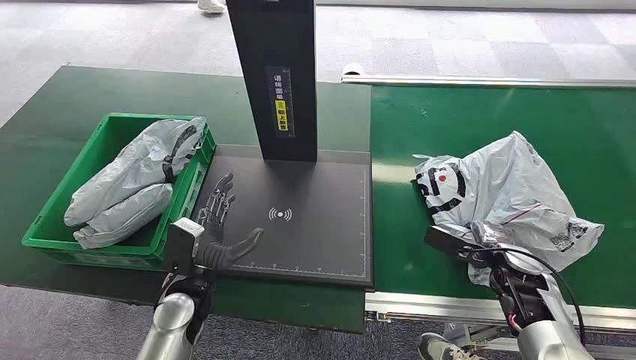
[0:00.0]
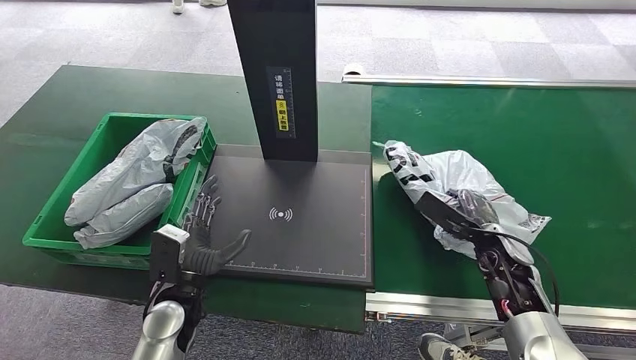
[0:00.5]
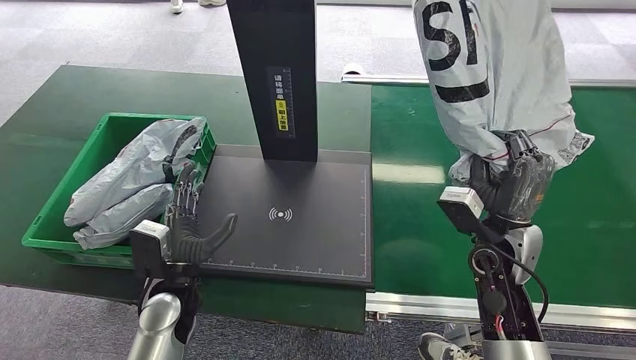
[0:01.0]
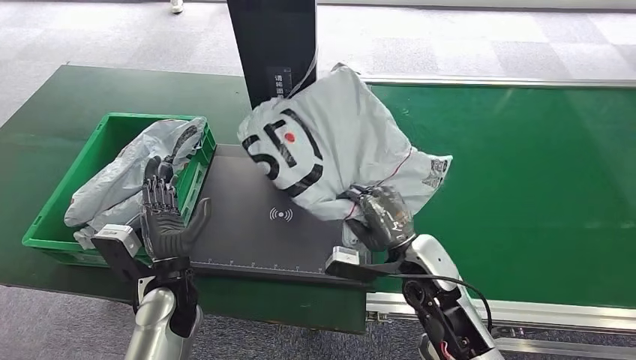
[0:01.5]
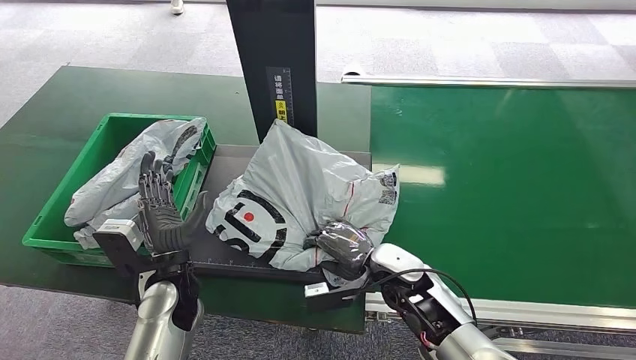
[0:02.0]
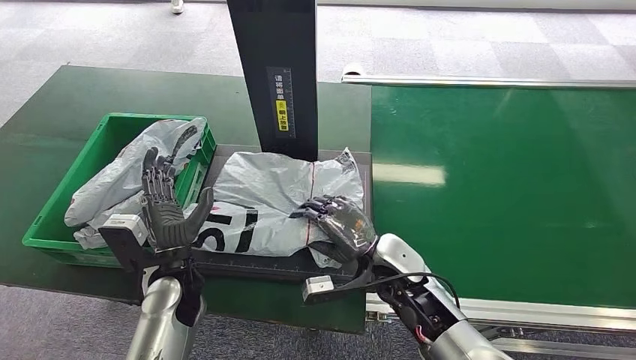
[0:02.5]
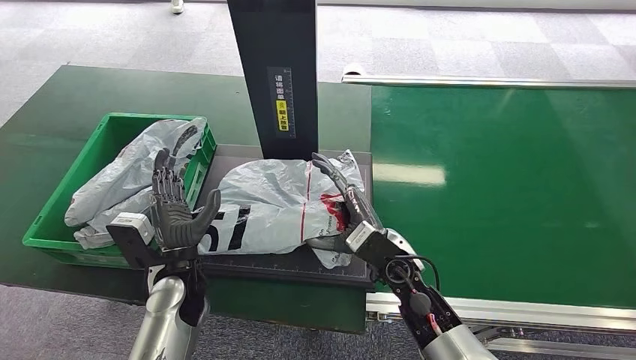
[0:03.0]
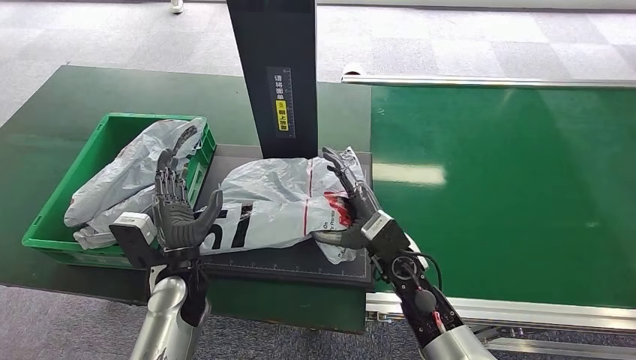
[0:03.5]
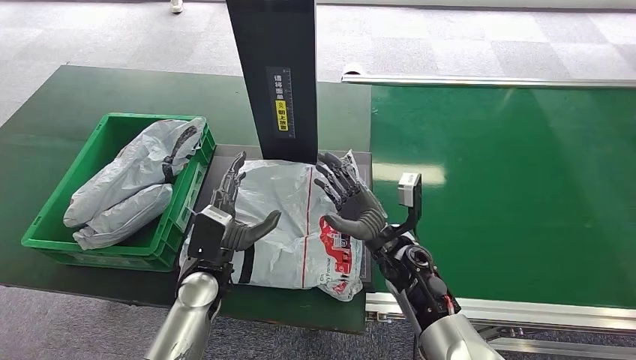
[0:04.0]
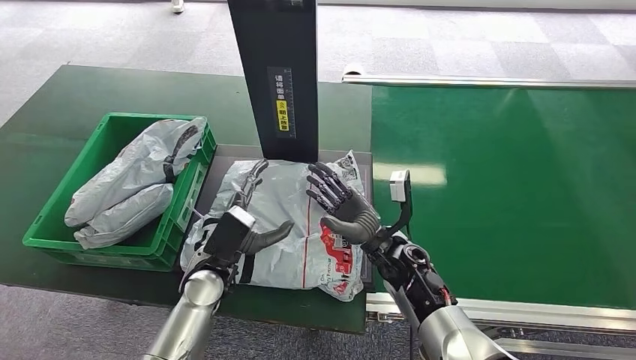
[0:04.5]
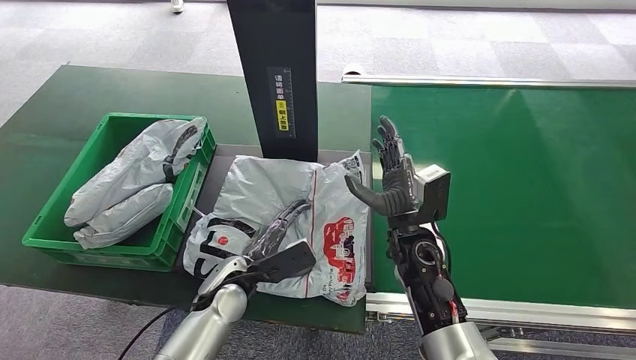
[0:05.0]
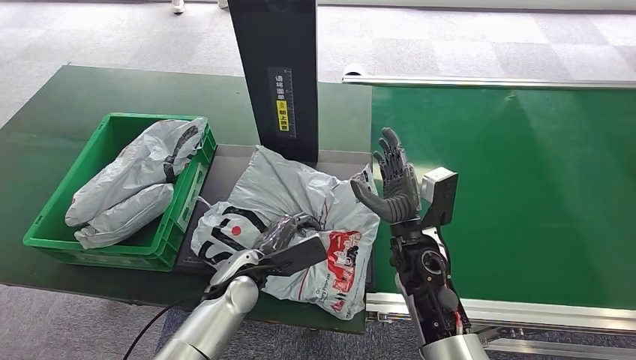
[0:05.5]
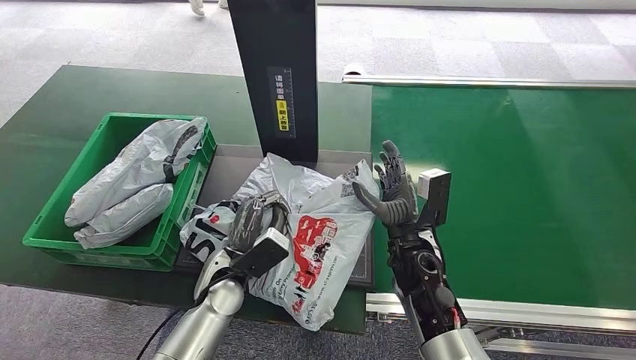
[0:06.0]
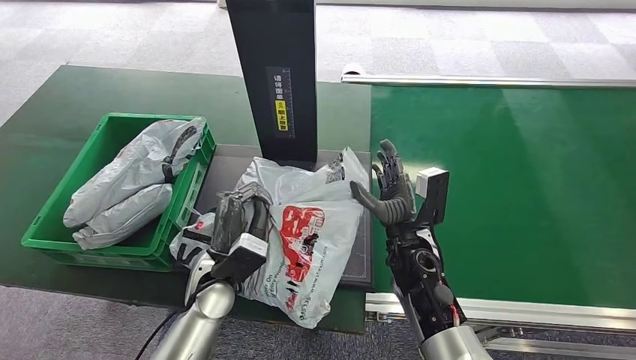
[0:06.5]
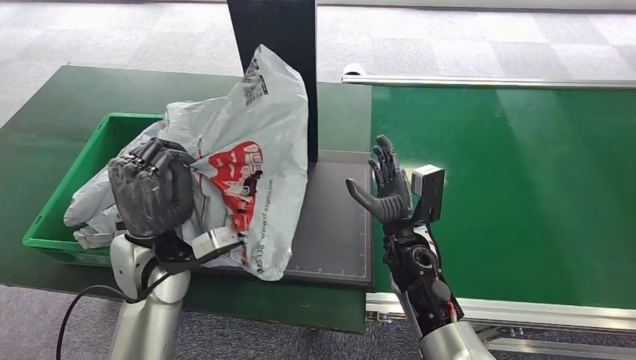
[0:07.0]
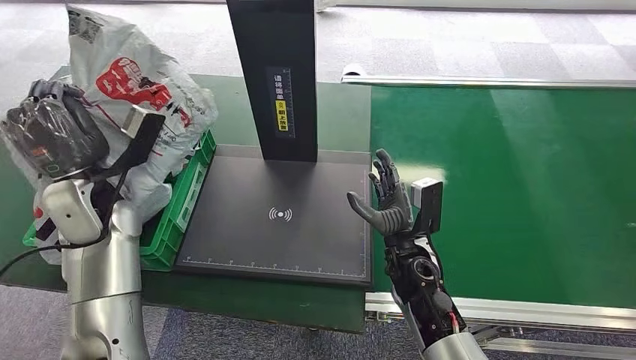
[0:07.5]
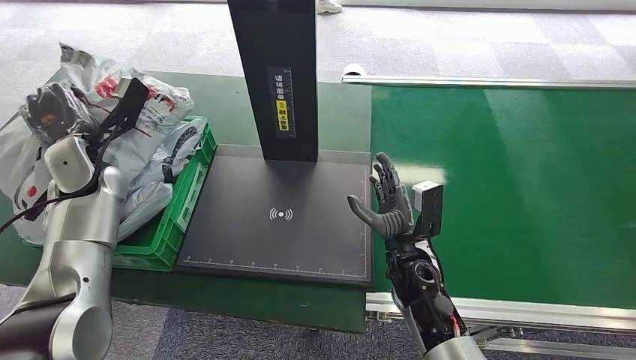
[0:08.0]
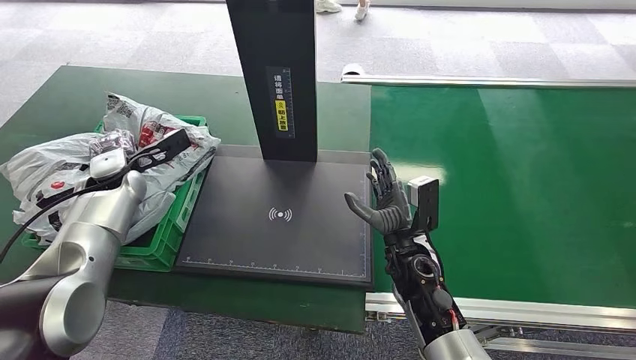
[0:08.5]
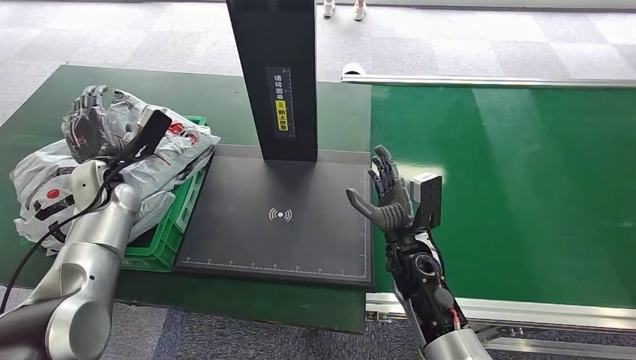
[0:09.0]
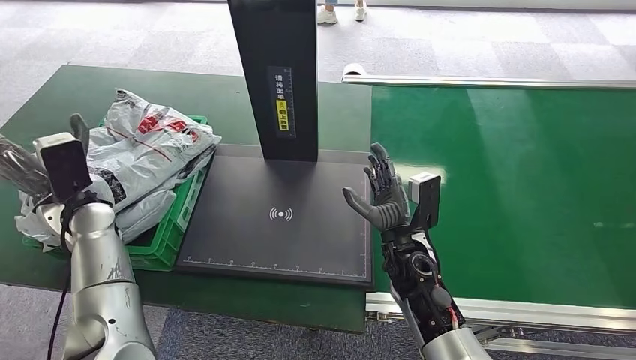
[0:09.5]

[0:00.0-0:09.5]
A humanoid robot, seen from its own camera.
Step, 0:00.0 to 0:00.5: Pick up the package from the conveyor belt.
Step, 0:01.0 to 0:03.0: Place the package onto the inbound machine.
Step, 0:04.0 to 0:07.5: Pick up the package from the inbound machine.
Step, 0:08.0 to 0:09.5: Place the package into the parcel locker.
0:07.5 to 0:09.5: The left hand is displaced downward by about 5 cm, and goes forward and returns, approximately 10 cm each way.
